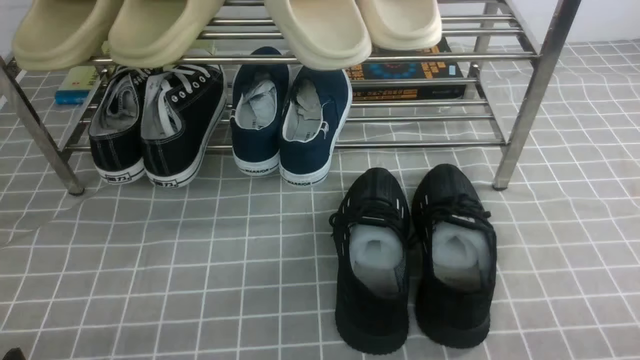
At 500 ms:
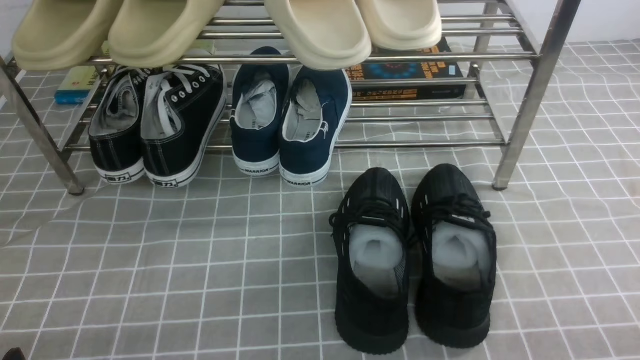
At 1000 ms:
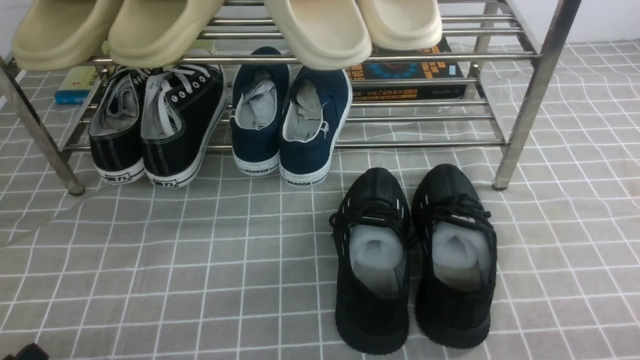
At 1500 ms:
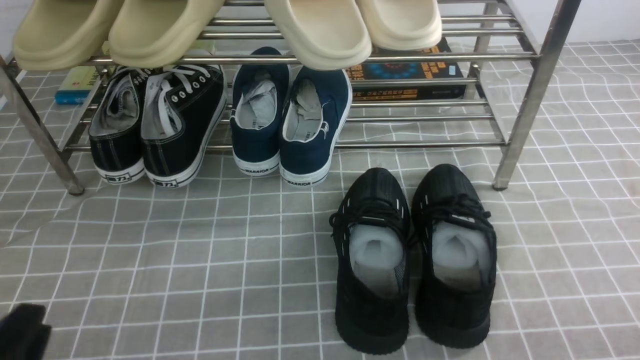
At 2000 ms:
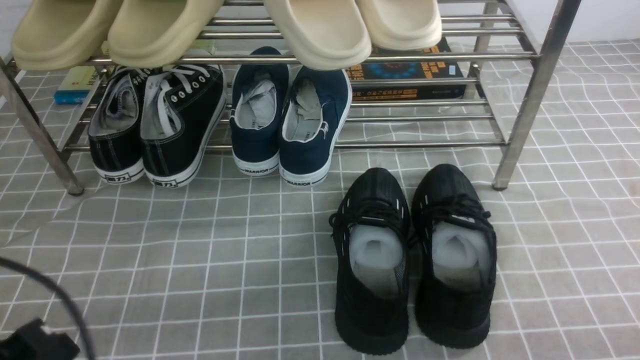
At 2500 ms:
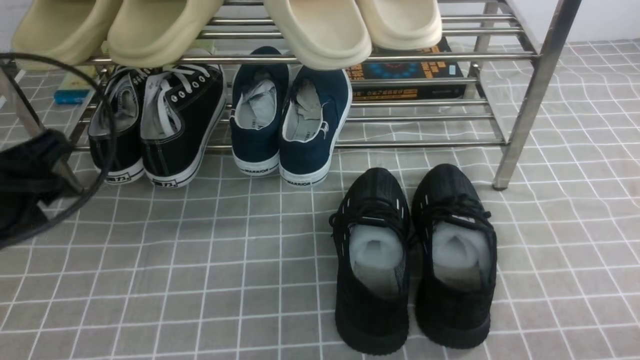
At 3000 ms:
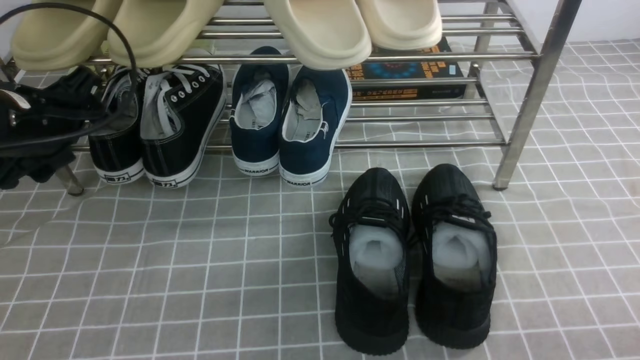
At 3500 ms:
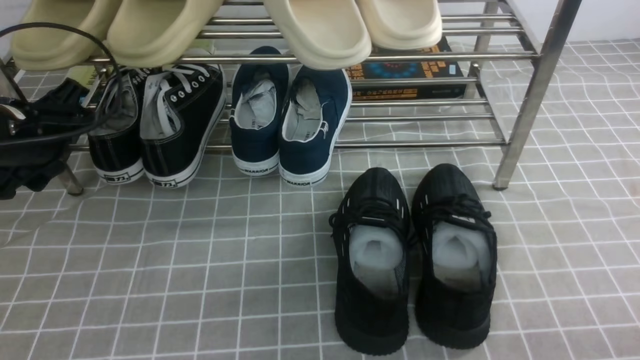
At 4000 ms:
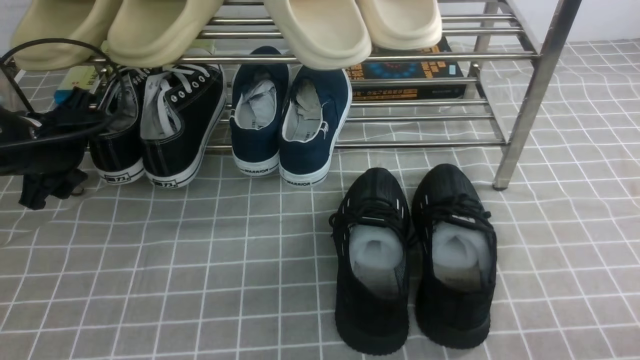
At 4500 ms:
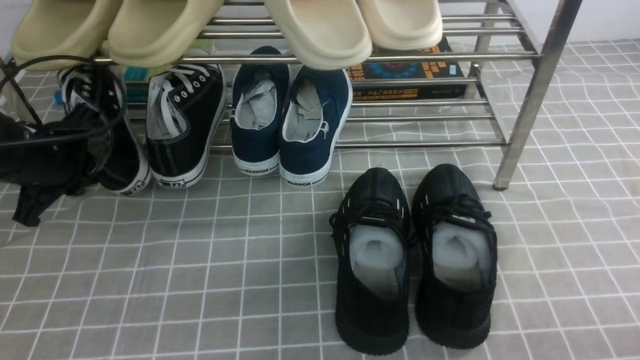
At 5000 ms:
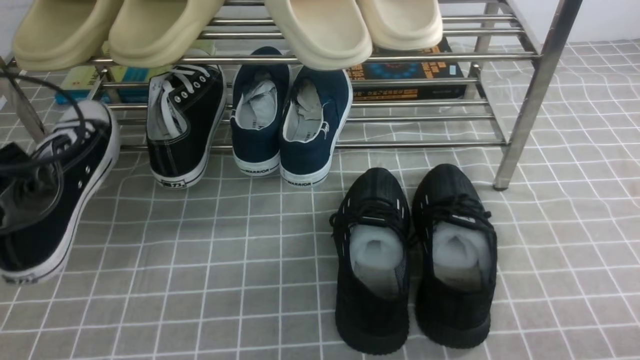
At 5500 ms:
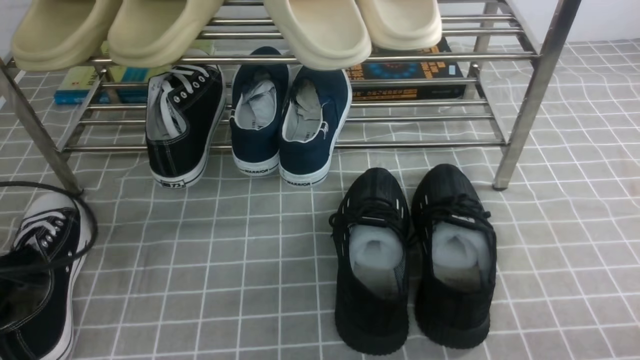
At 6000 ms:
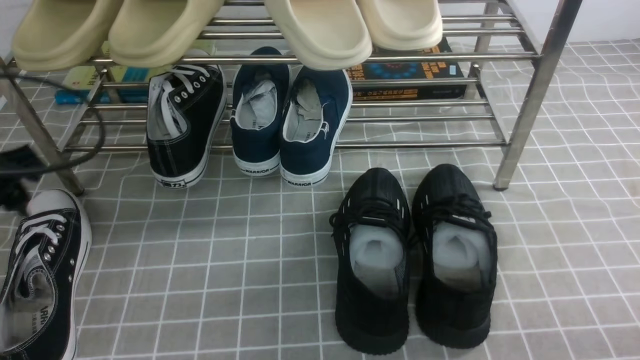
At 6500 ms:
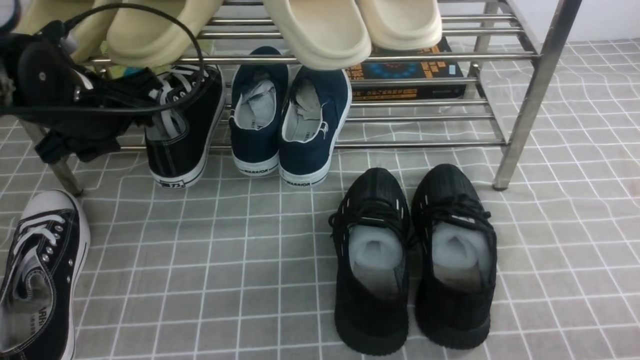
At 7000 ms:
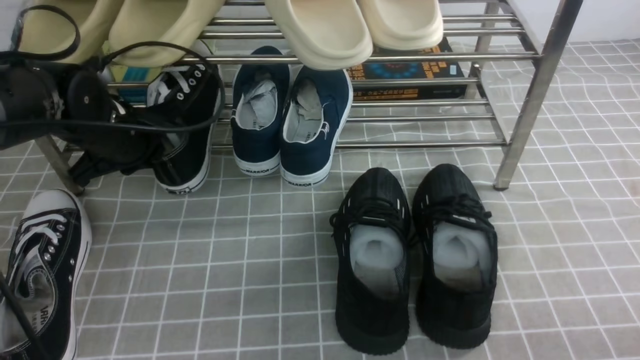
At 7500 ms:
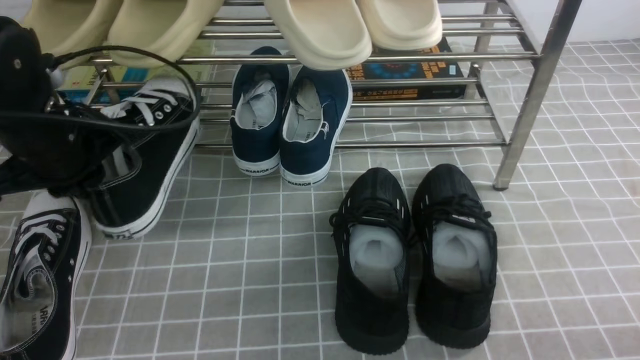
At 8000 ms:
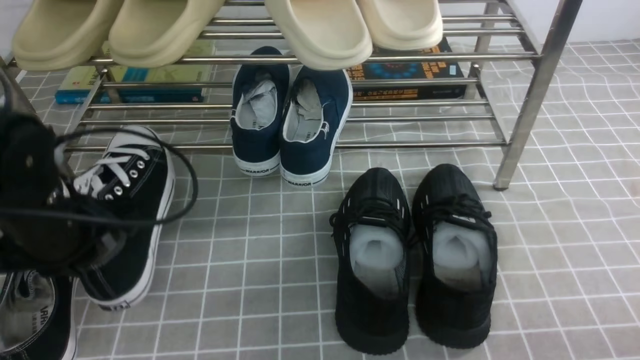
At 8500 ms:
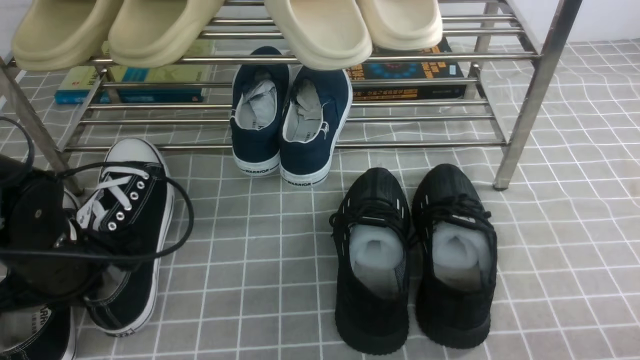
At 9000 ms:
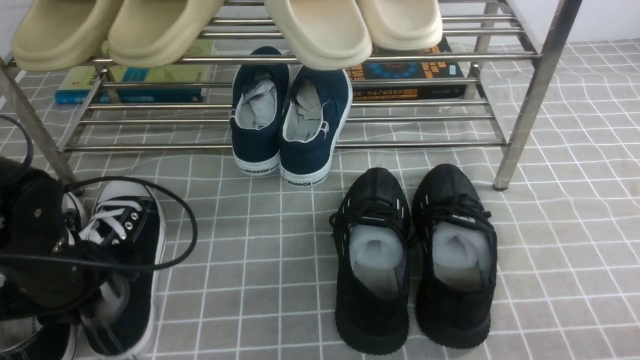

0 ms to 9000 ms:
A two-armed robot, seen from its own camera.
Step, 0 ms to 4500 ms: use the left arm to clamp a shoe on the left side of the shoe rack.
Step, 5000 ms to 5500 ms: Use your left arm to remove the clamped shoe from the shoe rack and put it down.
Step, 6000 ms to 7000 ms: use the left arm to clamp a shoe on the left side of the shoe rack.
0 ms to 2000 ms: The left gripper is displaced upward by some 10 cm.
2000 ms to 4500 ms: The left gripper goes roughly 25 cm forward, and opens, then closes again.
4500 ms to 7000 ms: The left gripper shifts approximately 10 cm to the right, goes backward and returns, approximately 15 cm each way, and opens, then closes once more.
7000 ms to 9000 ms: The left gripper moves backward, about 15 cm.

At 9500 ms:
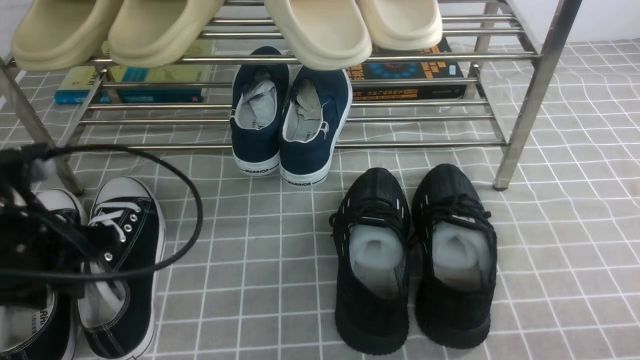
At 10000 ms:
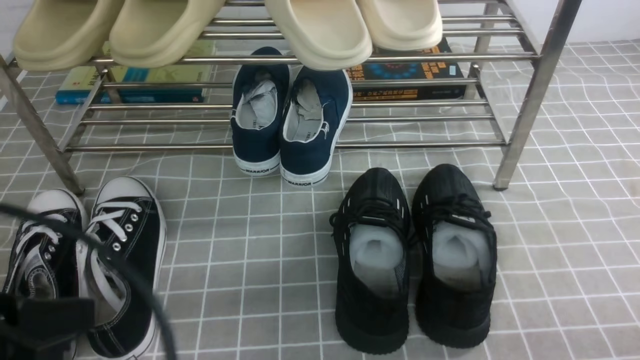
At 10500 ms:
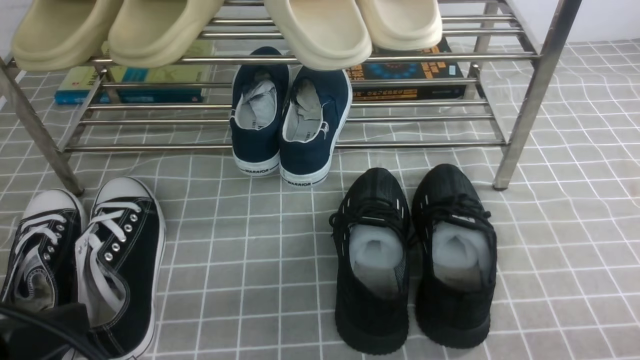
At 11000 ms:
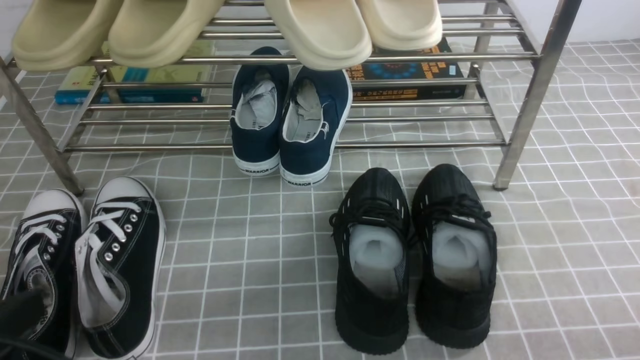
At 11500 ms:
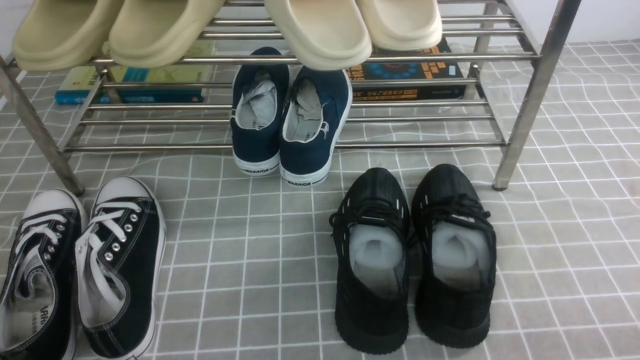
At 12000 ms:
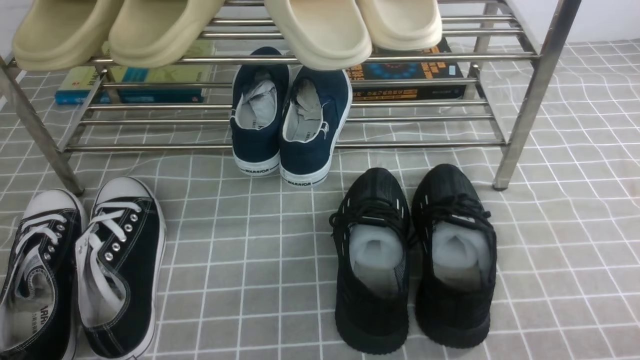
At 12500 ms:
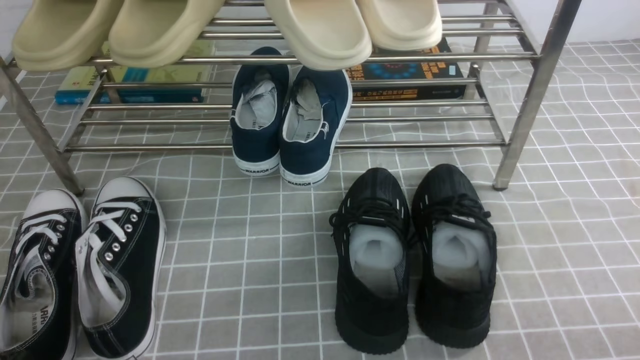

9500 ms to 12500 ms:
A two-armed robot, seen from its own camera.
9500 ms to 11000 ms: The left gripper goes about 15 cm backward, and closes its fingers.
11000 ms to 12500 ms: The left gripper shifts some 10 cm downward.
